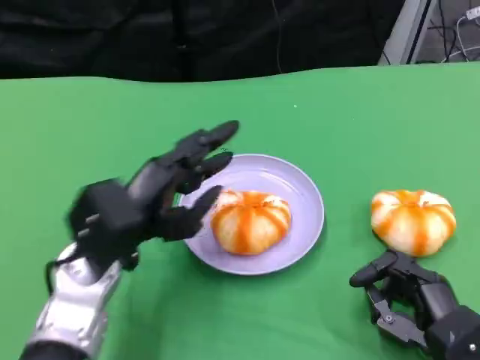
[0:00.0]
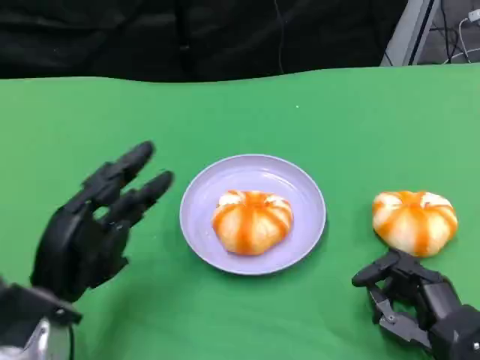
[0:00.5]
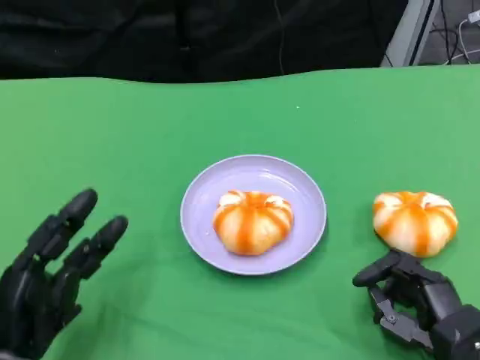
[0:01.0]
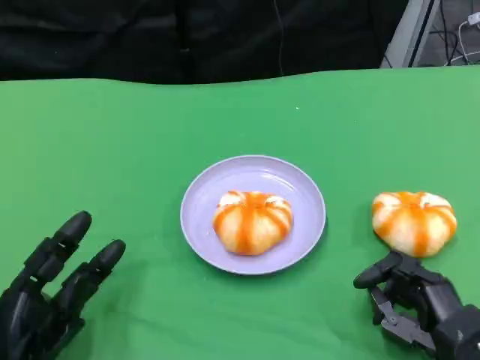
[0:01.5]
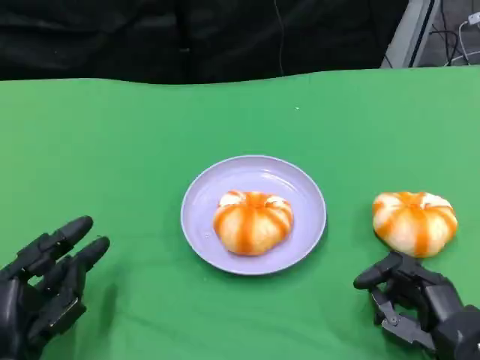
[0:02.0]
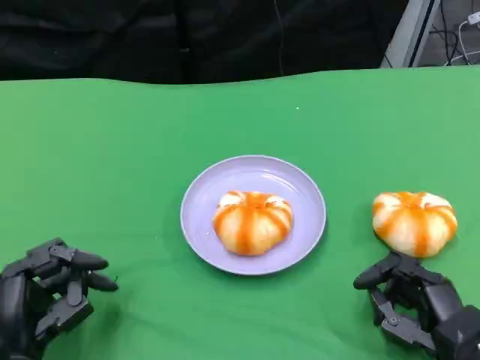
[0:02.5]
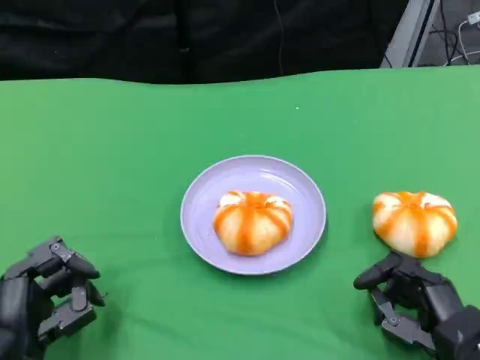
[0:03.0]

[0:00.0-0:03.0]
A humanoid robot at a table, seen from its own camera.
Task of the whole recording: Grasp the bread from the table and place it into the plate.
0:00.0 to 0:01.5: The left hand shifts roughly 15 cm backward, downward and to the left.

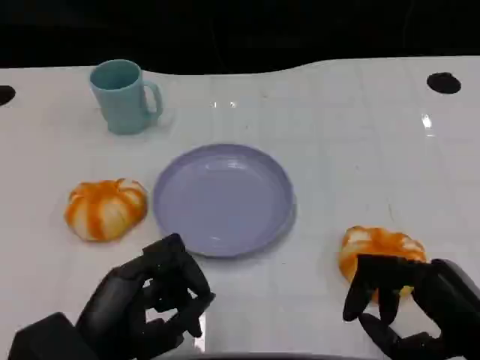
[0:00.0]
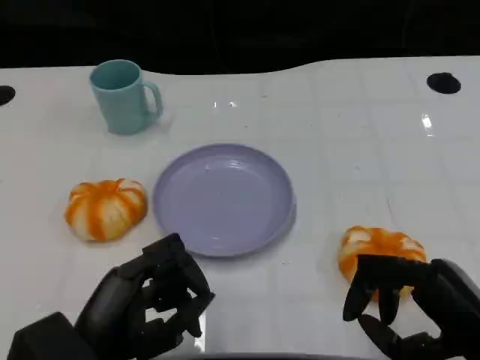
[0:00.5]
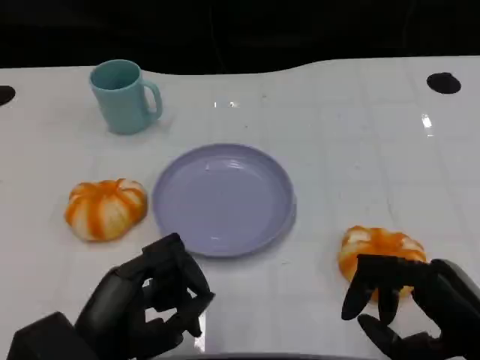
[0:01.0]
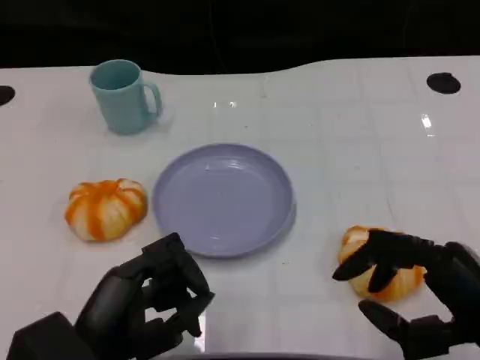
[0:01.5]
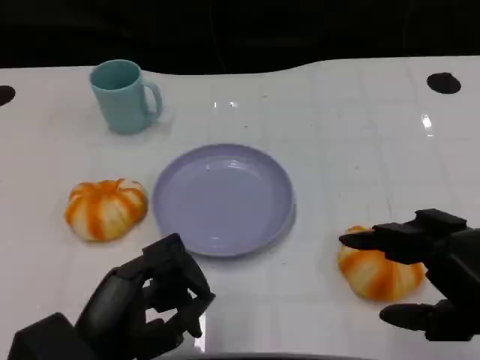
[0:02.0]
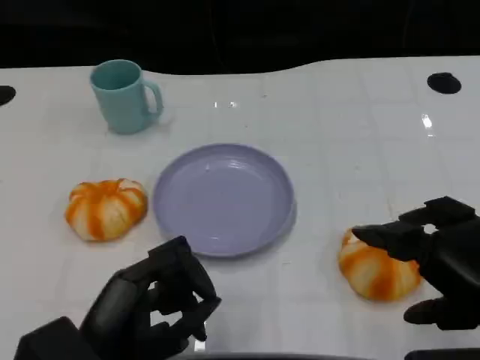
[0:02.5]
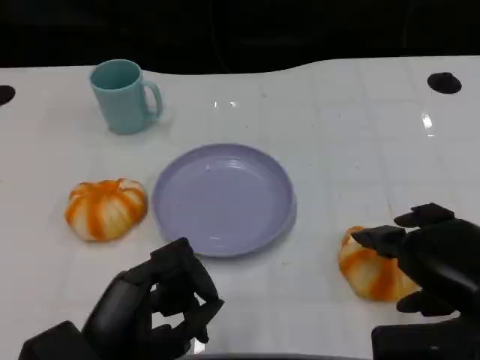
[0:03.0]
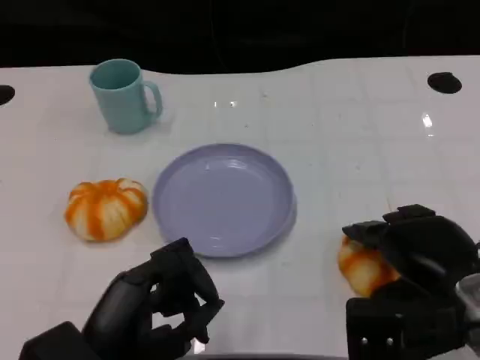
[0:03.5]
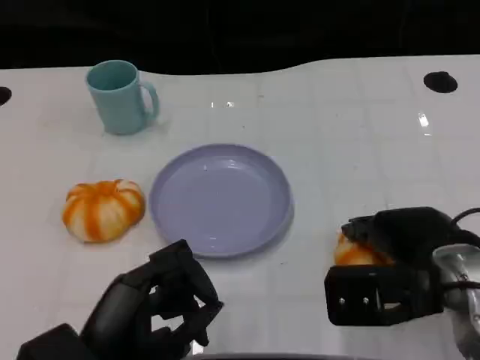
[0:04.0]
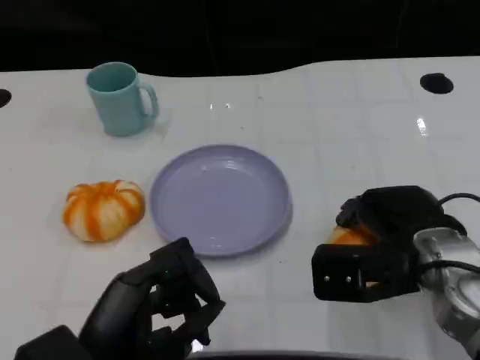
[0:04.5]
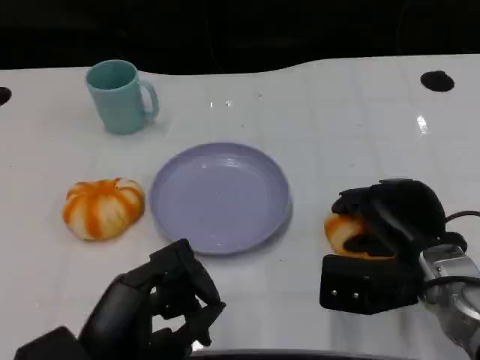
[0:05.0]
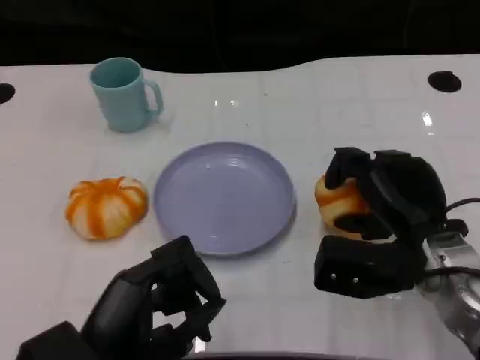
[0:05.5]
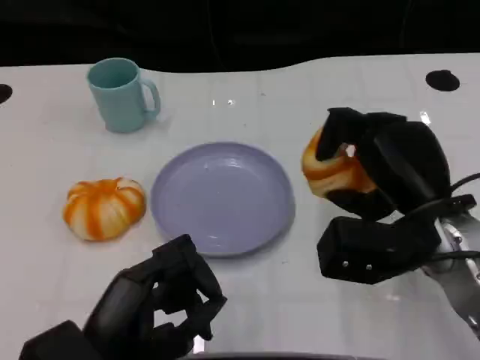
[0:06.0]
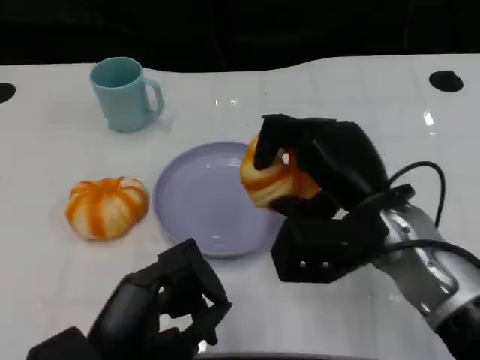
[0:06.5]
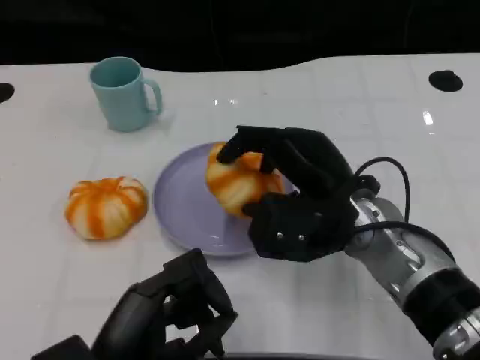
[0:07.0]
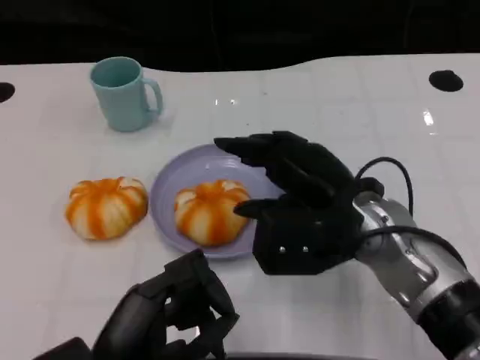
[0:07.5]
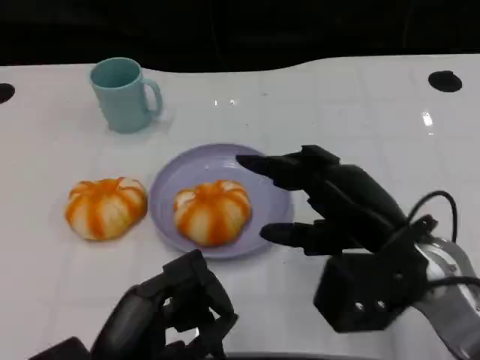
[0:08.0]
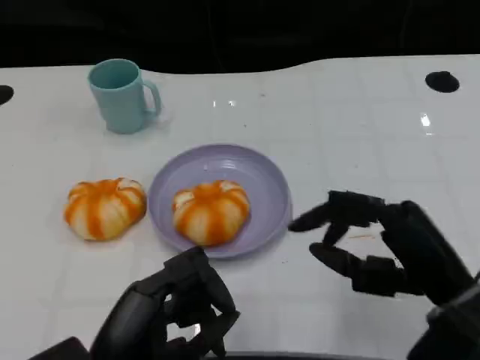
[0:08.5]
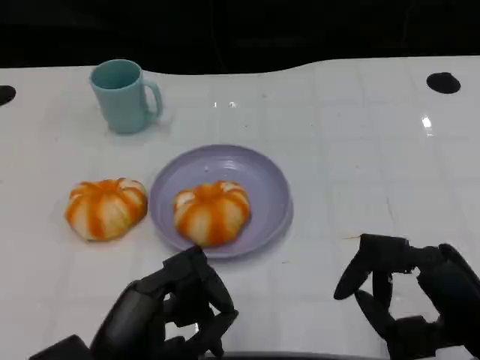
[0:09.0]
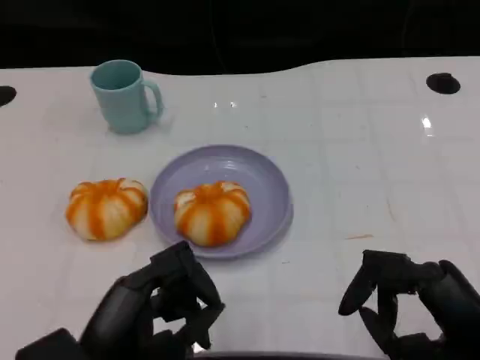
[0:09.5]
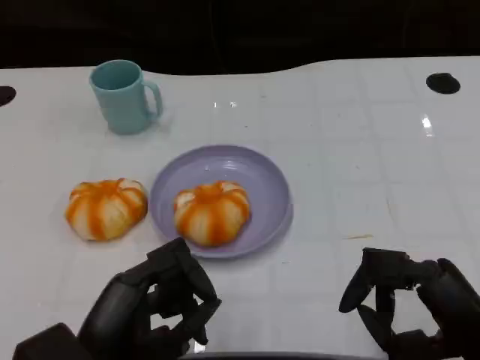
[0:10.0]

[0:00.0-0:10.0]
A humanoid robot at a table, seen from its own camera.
Task of the whole recording: Grasp the bread from the table and place it into the plate.
0:00.0 to 0:02.0: The right hand moves upward, roughly 5 cm.
0:02.0 to 0:04.0: The right hand moves forward and to the left, some 10 cm.
0:08.0 to 0:10.0: The right hand goes approximately 10 cm backward and to the right.

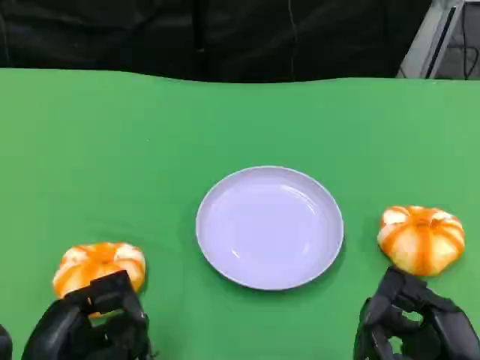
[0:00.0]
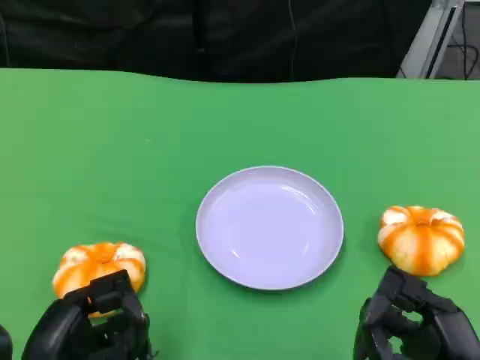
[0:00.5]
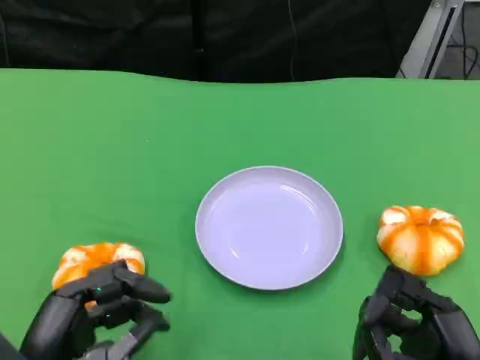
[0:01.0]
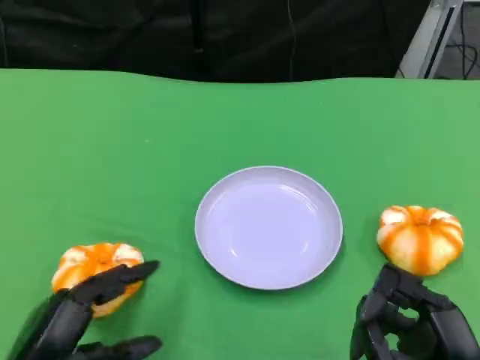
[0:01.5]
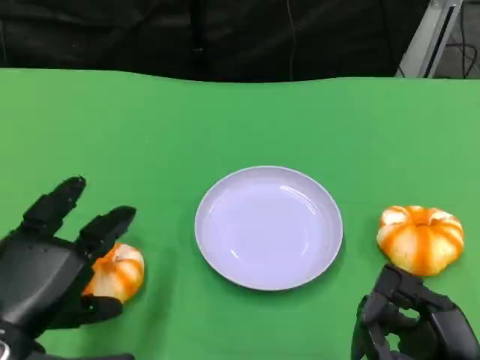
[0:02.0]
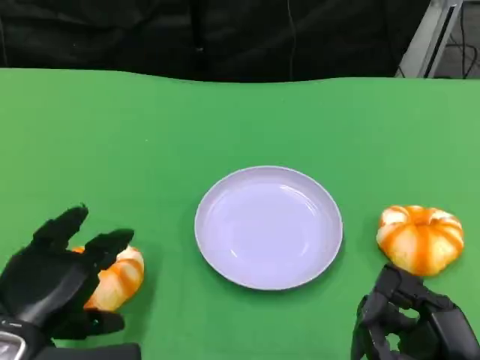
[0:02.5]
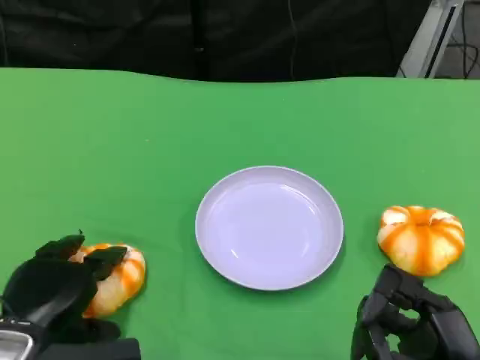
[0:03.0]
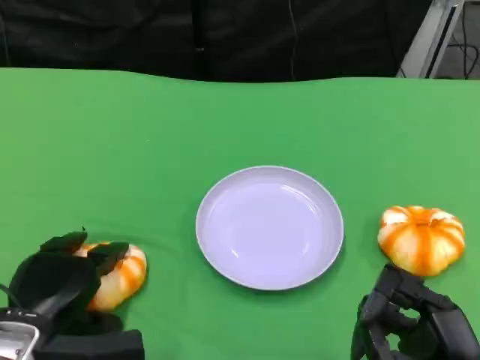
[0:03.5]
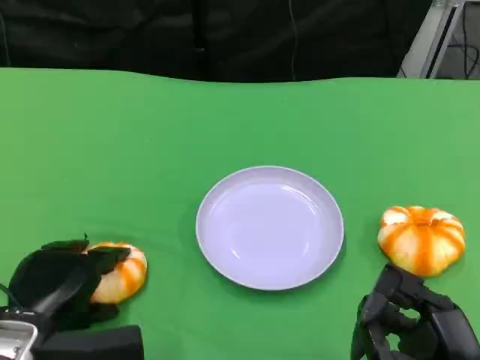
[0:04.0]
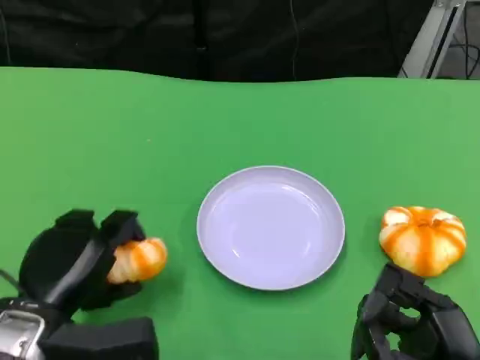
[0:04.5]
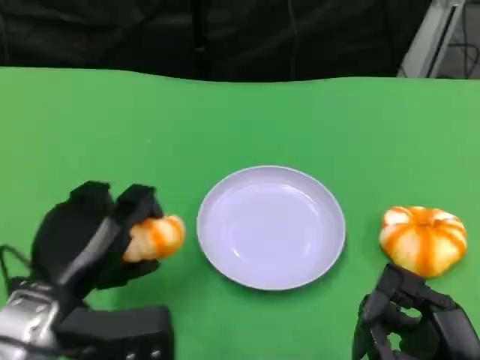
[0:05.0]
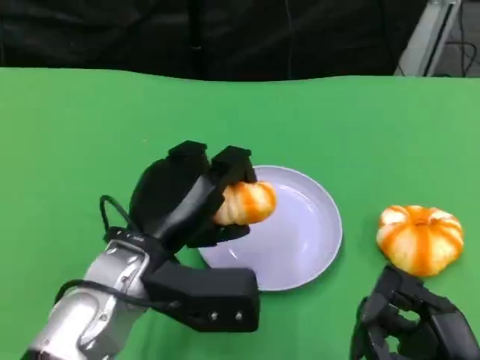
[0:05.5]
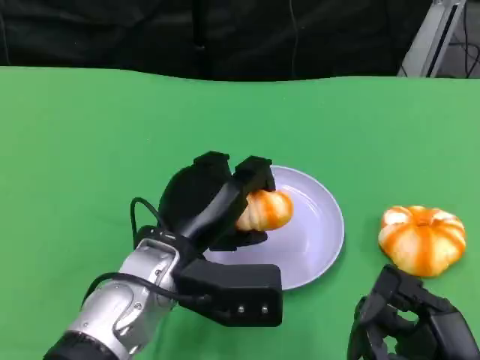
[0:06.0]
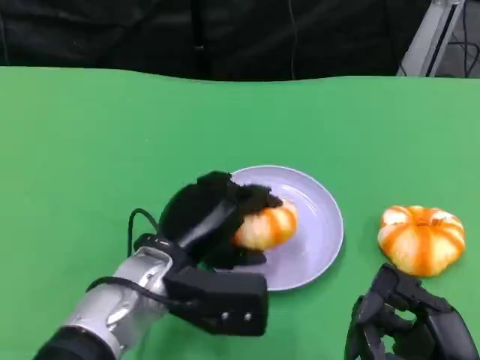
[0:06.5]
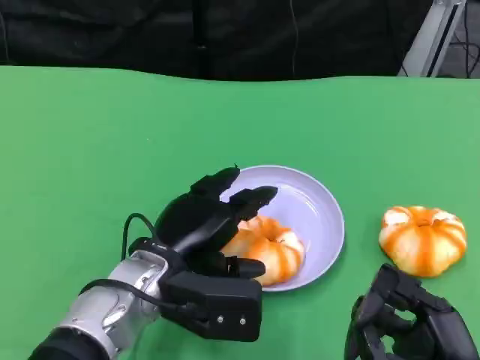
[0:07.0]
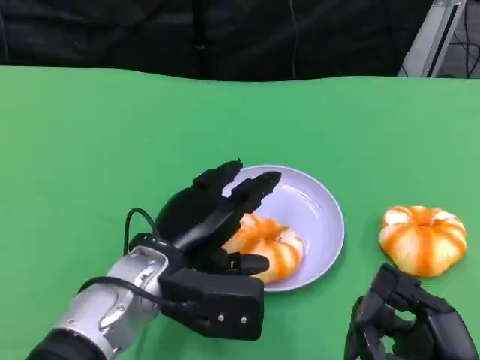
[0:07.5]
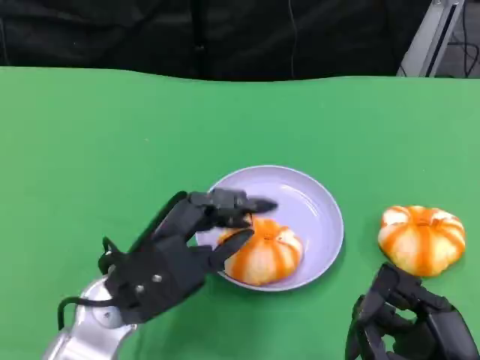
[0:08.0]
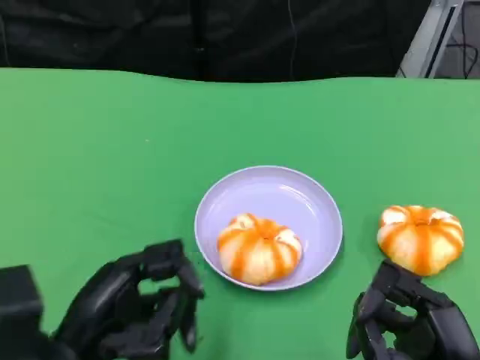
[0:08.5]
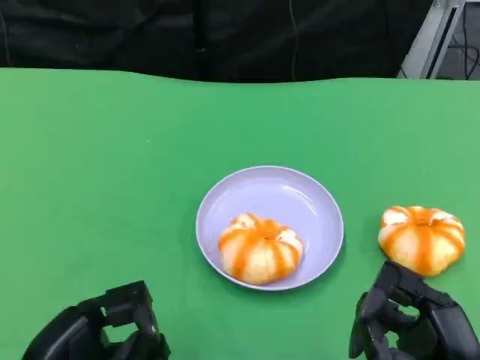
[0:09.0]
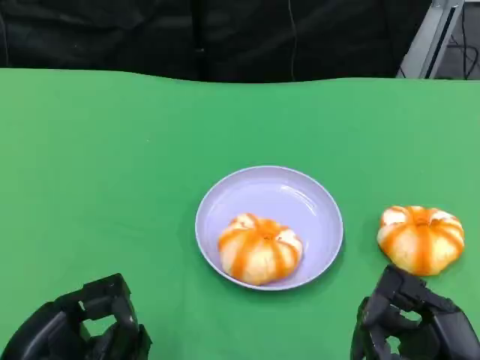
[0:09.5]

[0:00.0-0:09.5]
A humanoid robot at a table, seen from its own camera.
Task of the whole recording: Grasp the bread from the table and place it into the plate.
0:00.0 to 0:02.0: The left hand changes place by some 5 cm.
0:02.0 to 0:04.0: The left hand travels downward by some 5 cm.
0:04.0 to 0:05.5: The left hand is displaced to the right and upward by approximately 15 cm.
0:05.5 to 0:07.5: The hands make only small movements.
0:07.5 to 0:09.5: The left hand moves to the left and backward, approximately 20 cm.

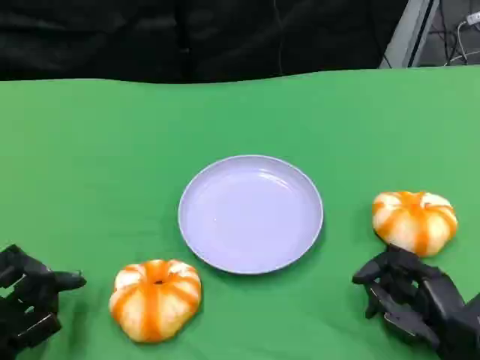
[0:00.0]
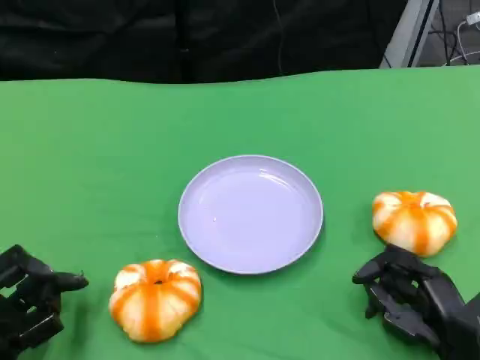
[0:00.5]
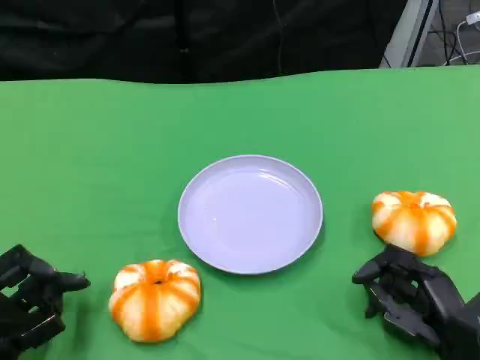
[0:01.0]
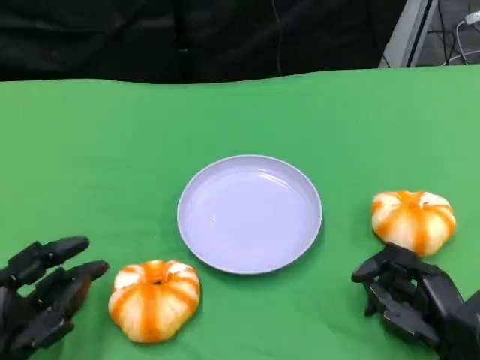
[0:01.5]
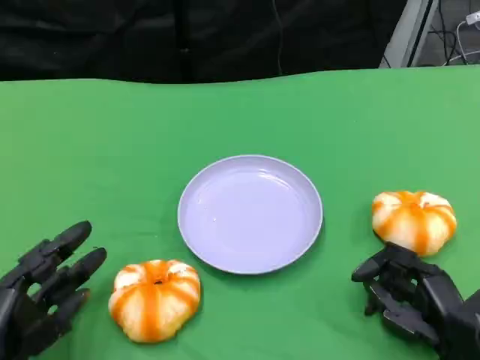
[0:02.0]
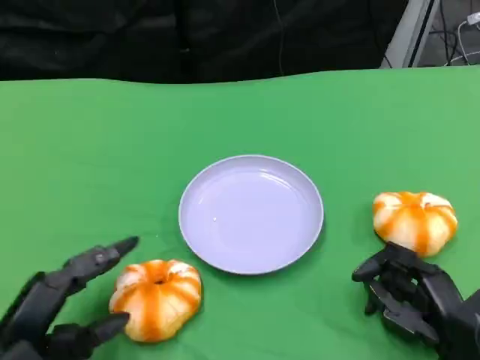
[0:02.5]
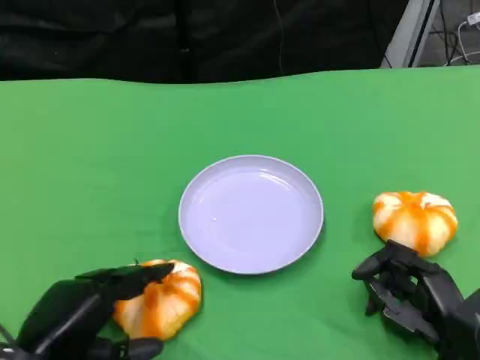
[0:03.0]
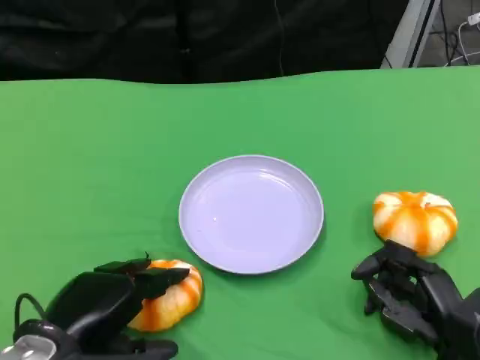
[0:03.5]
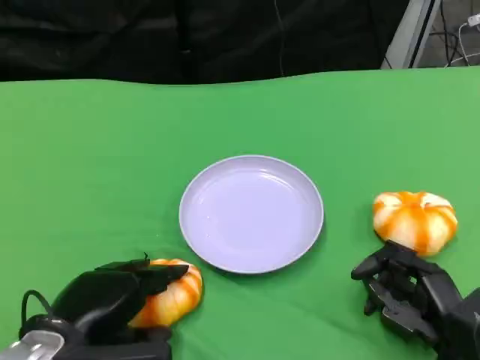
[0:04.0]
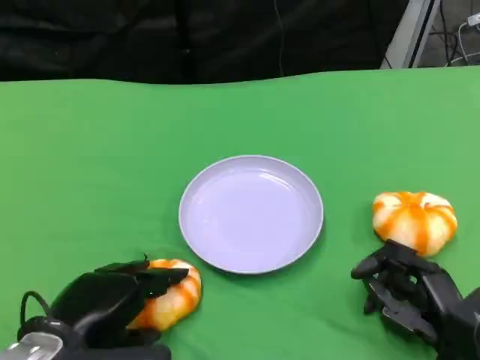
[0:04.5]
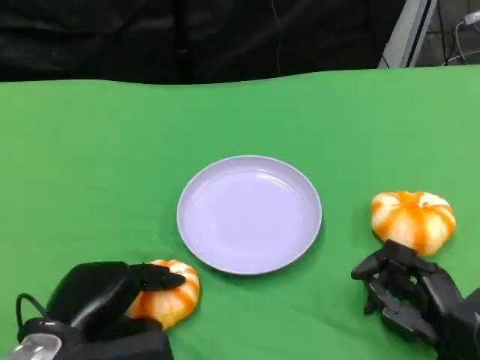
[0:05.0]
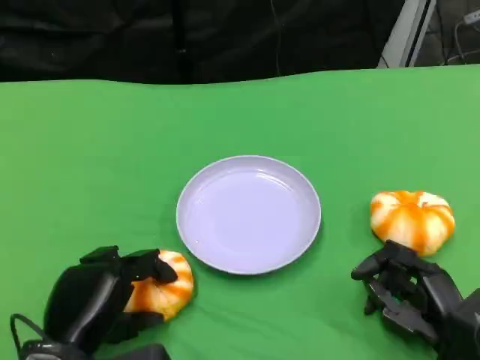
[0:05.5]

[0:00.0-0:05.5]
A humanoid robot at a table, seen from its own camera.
Task of the whole recording: Grasp the bread from the table and place it into the plate.
0:02.0 to 0:03.5: The left hand shifts some 10 cm to the right and upward.
